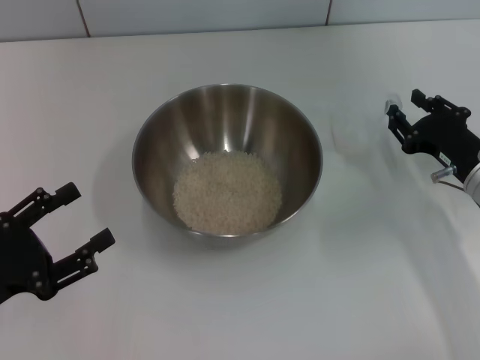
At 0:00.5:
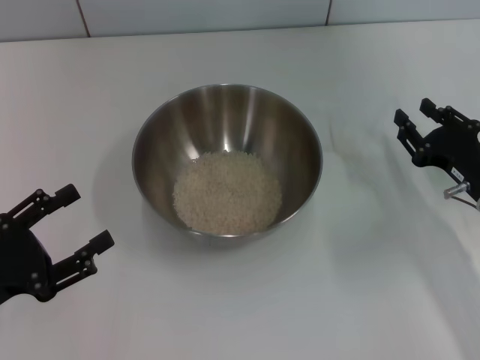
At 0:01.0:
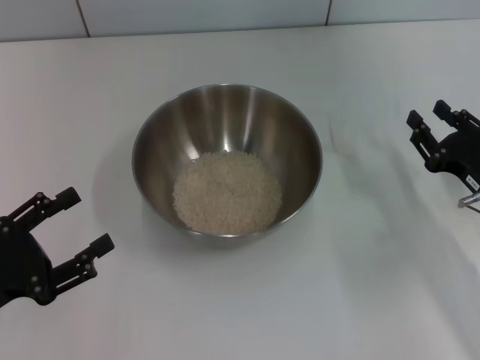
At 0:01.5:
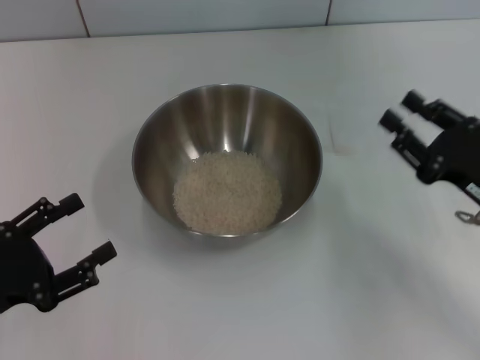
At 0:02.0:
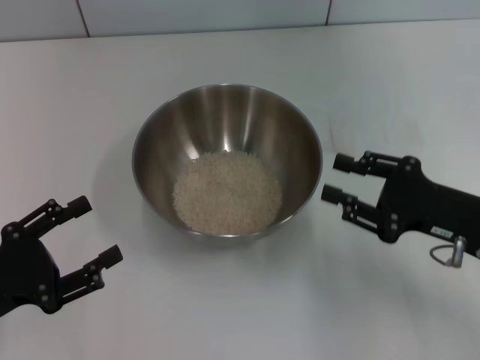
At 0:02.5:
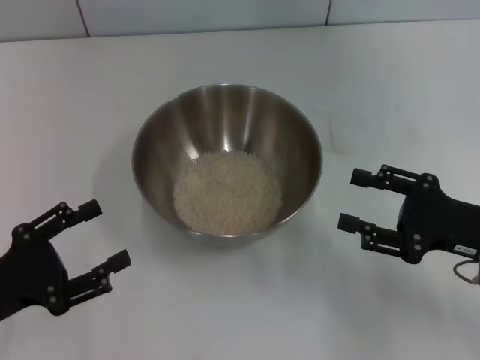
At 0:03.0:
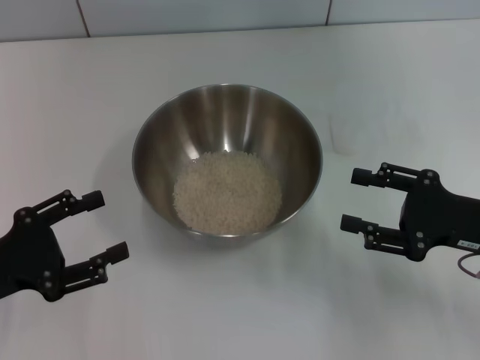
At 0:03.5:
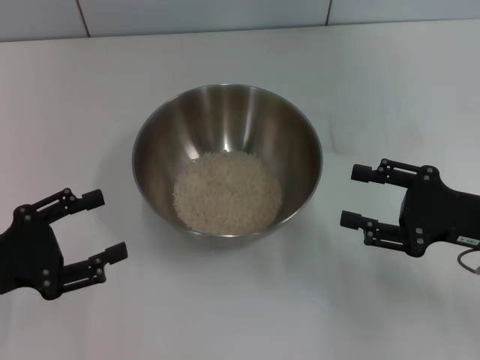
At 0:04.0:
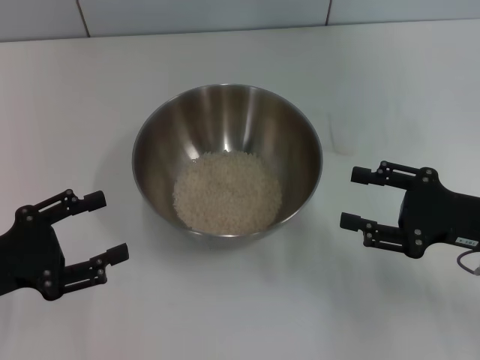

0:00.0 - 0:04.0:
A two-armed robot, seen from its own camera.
Task of the whole recording: Place the bowl in the middle of the table with one hand and pour the rice from the grain cup into it with the other hand.
0:00.0 - 0:02.0: The right gripper goes approximately 5 cm backward.
0:02.0 - 0:04.0: There are only small adjustments of the grippers.
